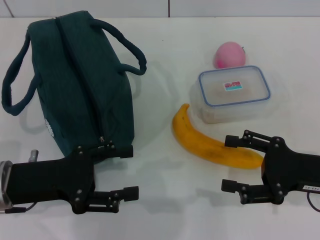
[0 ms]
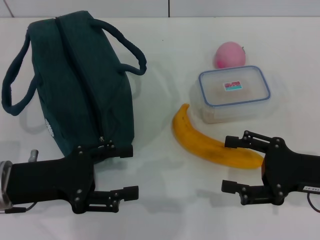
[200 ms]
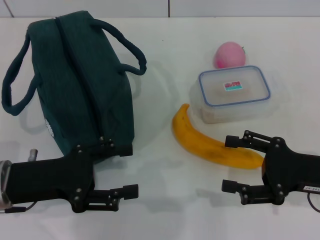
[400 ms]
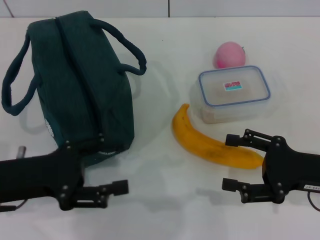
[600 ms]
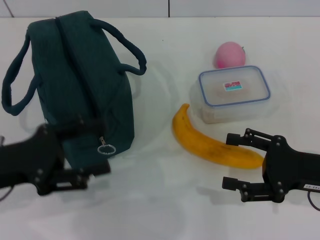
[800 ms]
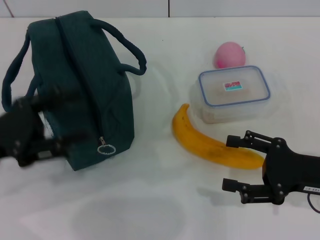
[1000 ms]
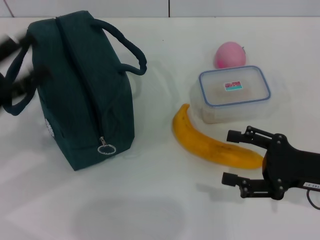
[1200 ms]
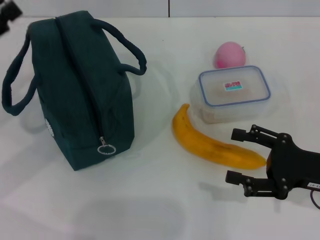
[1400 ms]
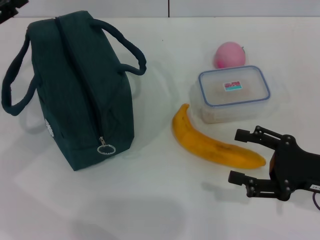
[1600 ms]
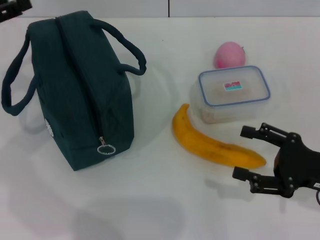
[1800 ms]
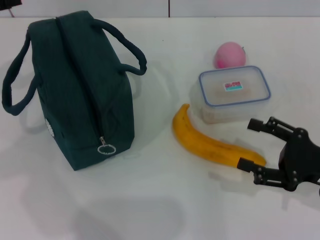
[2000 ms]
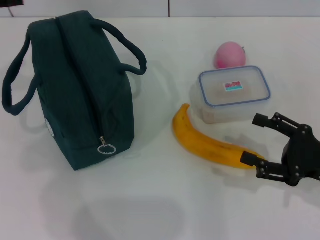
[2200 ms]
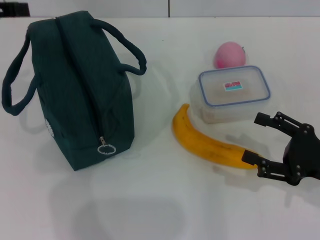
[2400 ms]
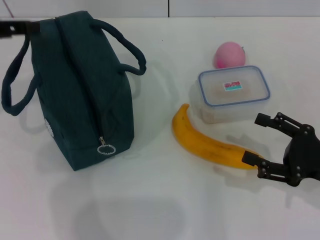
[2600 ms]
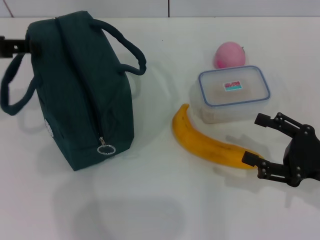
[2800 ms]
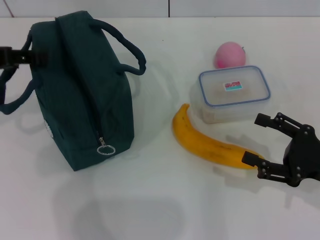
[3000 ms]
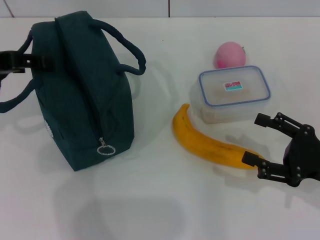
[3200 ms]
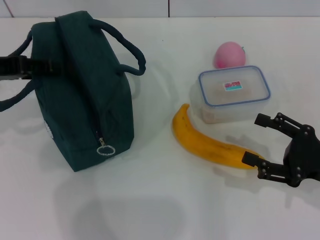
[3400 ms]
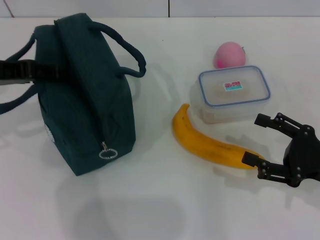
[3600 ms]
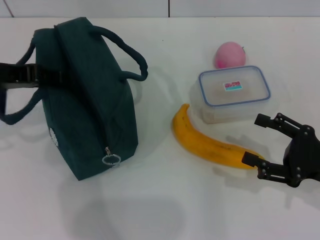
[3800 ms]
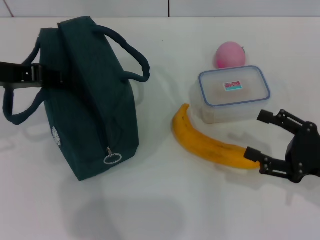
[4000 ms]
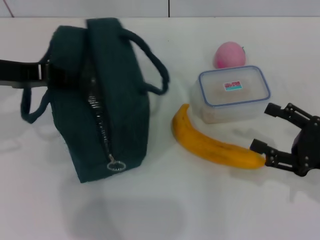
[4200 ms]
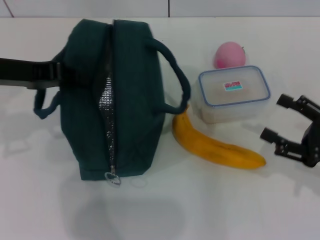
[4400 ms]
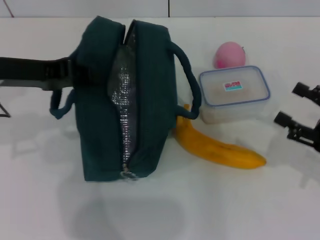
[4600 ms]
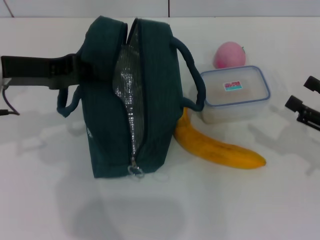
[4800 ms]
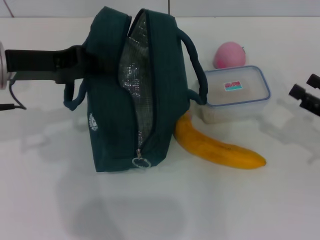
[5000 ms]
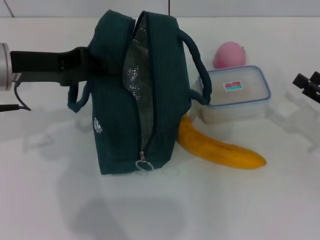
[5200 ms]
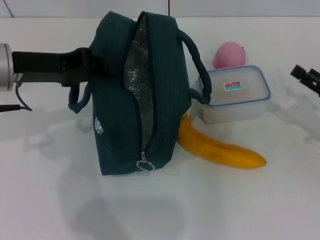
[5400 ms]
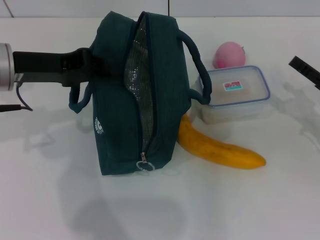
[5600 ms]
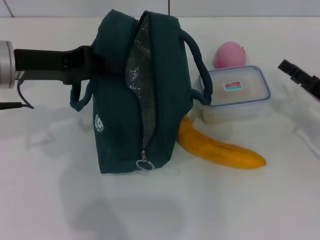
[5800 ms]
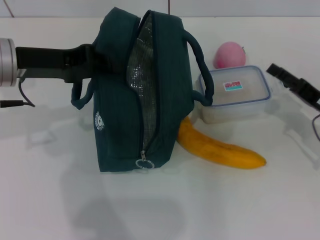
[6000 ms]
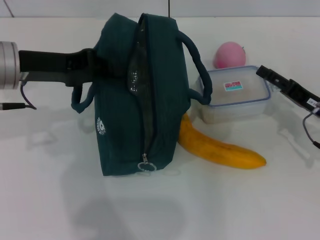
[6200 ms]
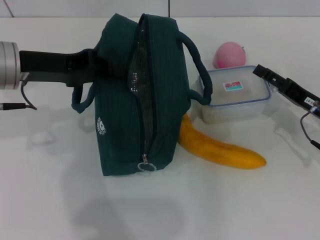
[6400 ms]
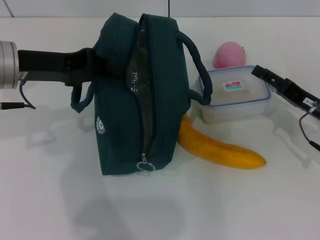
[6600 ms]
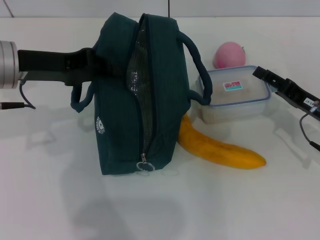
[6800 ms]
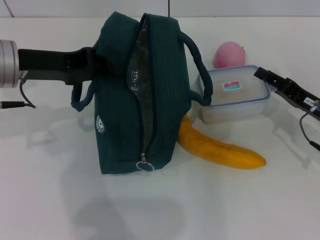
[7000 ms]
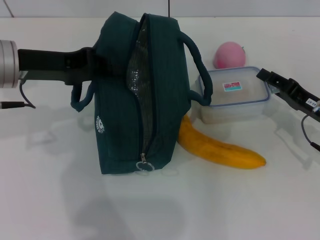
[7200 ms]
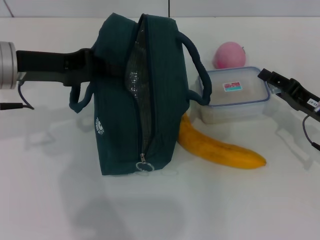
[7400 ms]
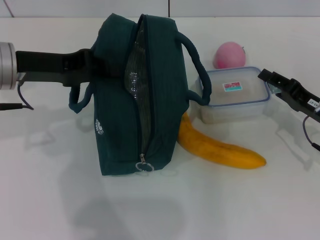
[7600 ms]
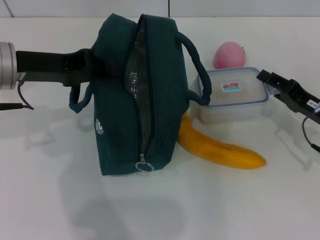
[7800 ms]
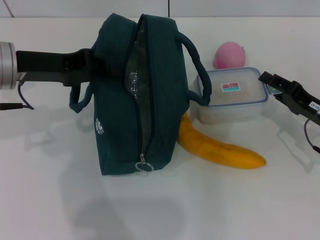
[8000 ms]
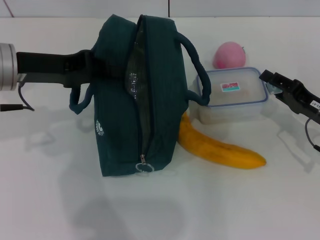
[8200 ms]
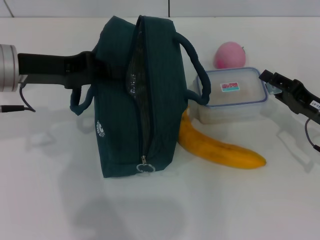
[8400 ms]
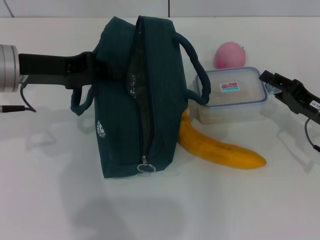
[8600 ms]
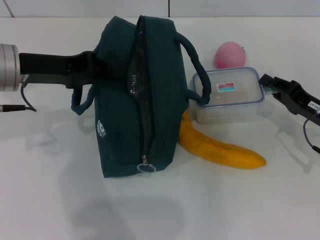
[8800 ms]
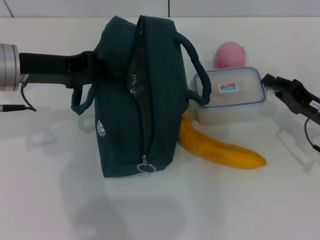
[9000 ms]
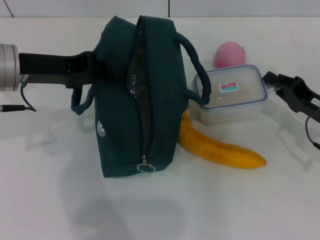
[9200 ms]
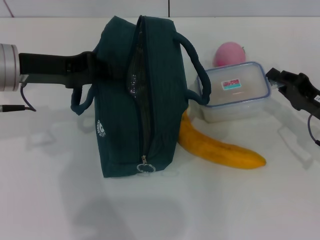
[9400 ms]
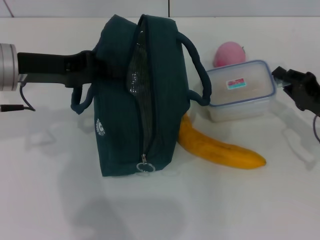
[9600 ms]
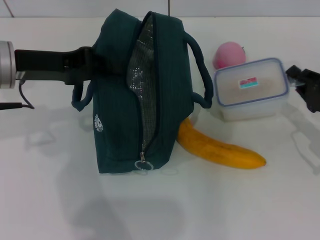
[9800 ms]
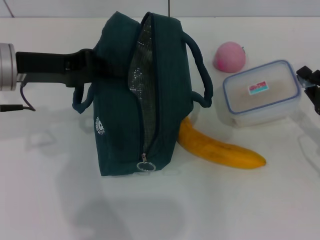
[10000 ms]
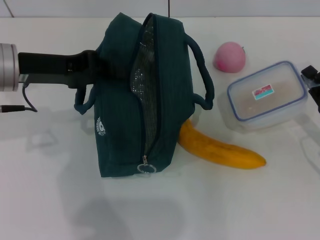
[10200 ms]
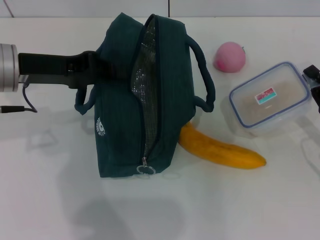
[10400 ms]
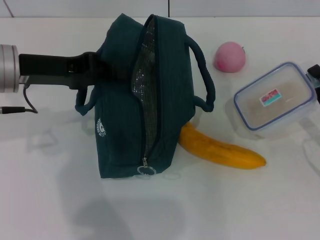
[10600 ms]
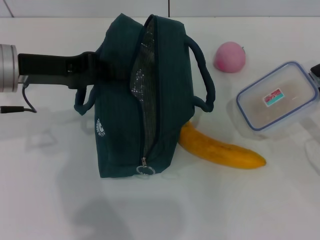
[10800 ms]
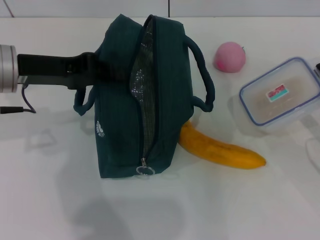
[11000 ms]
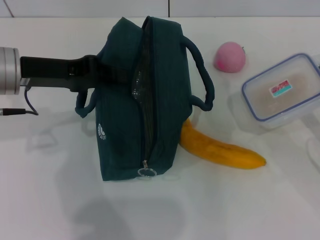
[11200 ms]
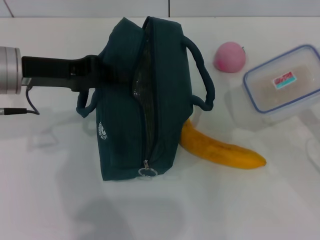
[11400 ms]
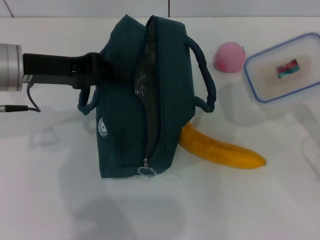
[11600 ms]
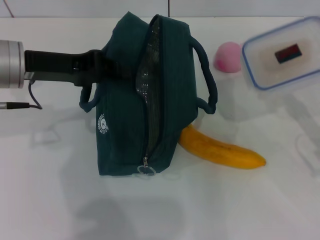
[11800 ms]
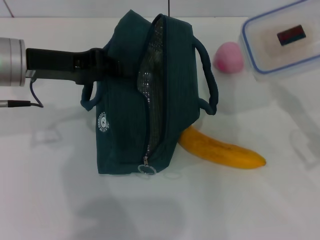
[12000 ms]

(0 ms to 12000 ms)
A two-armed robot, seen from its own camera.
Step, 0 ms - 4000 ms: Hold the lunch bag with your left hand.
Step, 4200 ms - 9000 ms: Pick up the lunch box with your right hand.
0 ms - 1600 ms: The left gripper is displaced to the left, forward and upward by roughly 15 cm.
1600 ms - 3000 ms: The left gripper is displaced upward by about 5 cm.
3000 ms - 4400 ms: The left gripper closes up.
4400 ms - 6000 ms: The right gripper moves forward, about 10 cm.
6000 ms - 7600 ms: The right gripper closes its fingers.
7600 ms - 9000 ms: Both grippers stay about where they are.
9000 ms - 10400 ms: The right gripper shifts by roughly 5 cm.

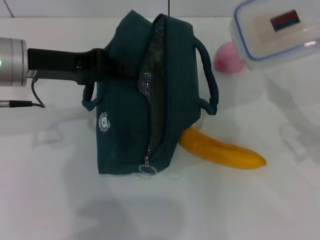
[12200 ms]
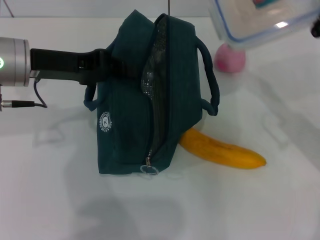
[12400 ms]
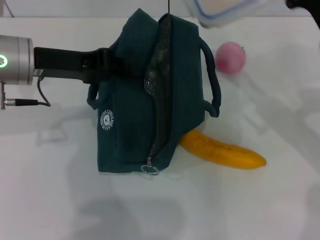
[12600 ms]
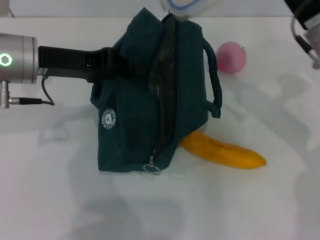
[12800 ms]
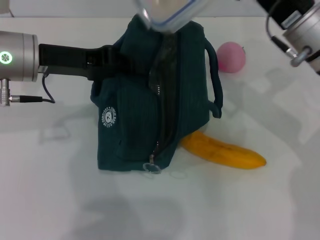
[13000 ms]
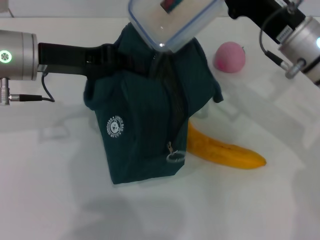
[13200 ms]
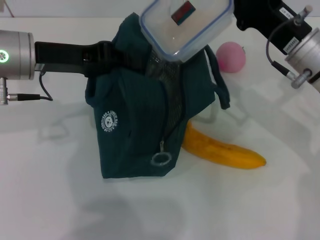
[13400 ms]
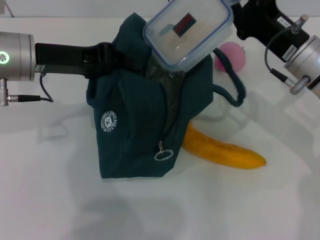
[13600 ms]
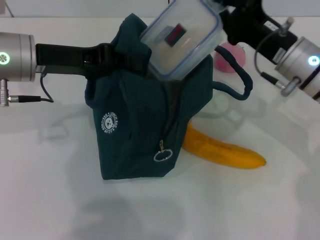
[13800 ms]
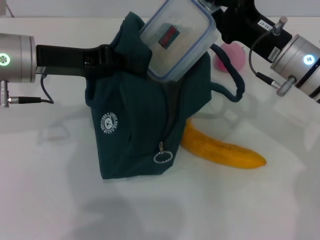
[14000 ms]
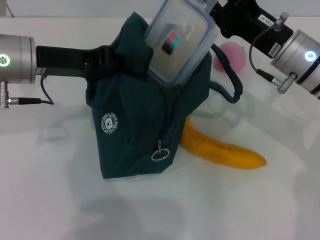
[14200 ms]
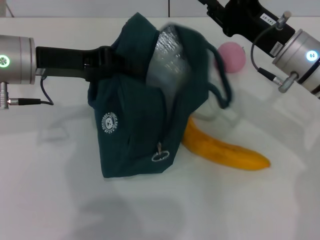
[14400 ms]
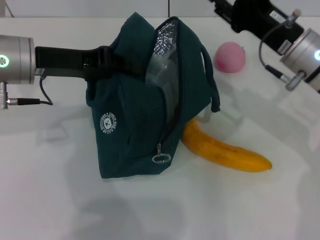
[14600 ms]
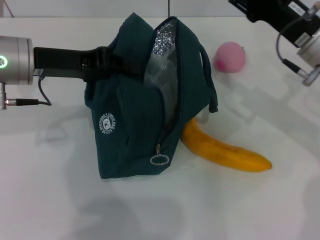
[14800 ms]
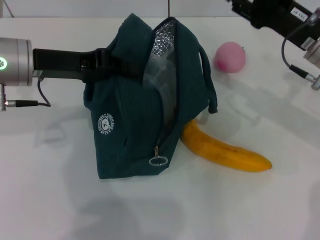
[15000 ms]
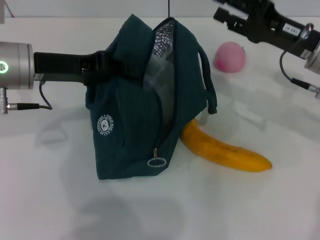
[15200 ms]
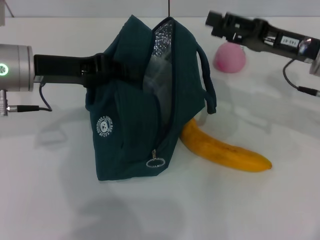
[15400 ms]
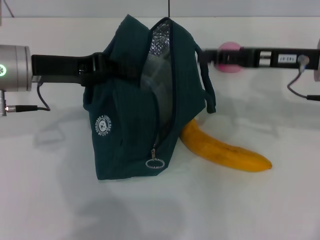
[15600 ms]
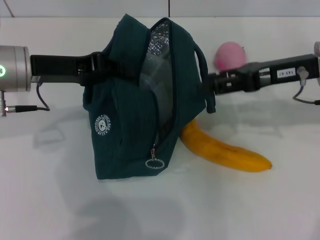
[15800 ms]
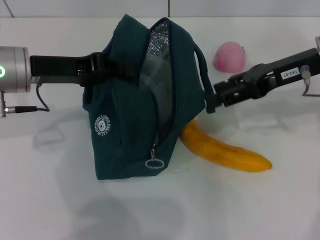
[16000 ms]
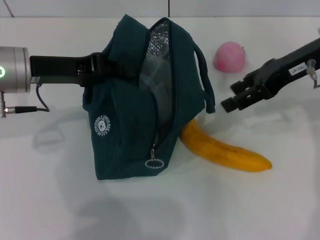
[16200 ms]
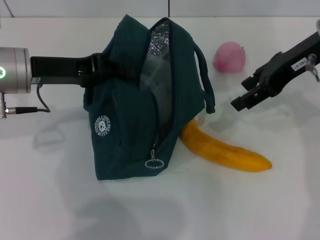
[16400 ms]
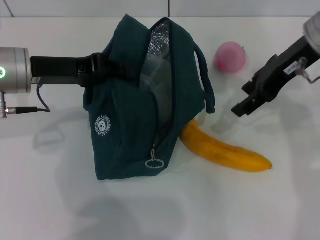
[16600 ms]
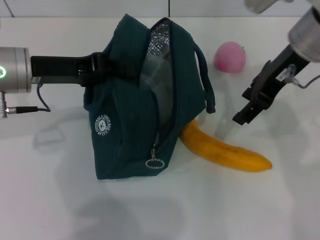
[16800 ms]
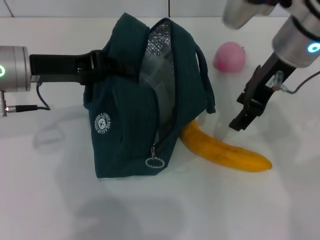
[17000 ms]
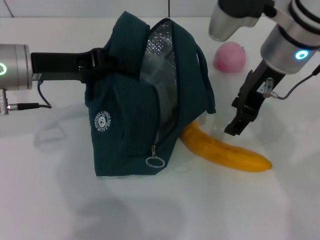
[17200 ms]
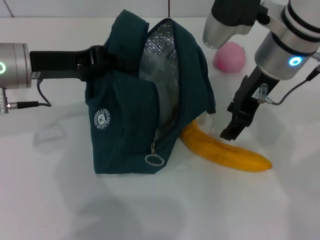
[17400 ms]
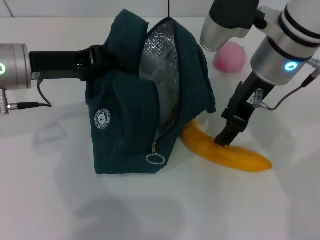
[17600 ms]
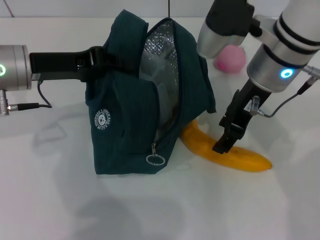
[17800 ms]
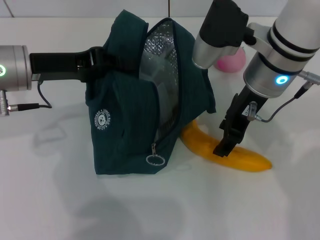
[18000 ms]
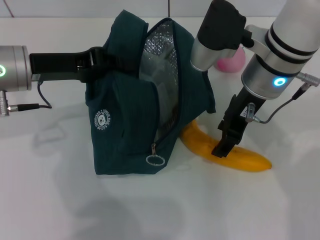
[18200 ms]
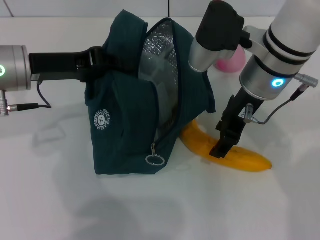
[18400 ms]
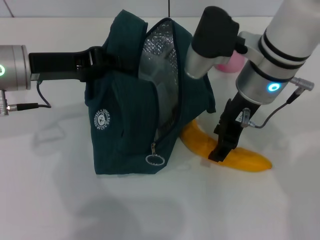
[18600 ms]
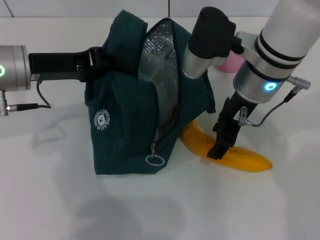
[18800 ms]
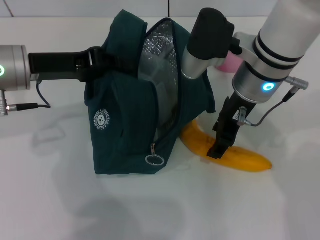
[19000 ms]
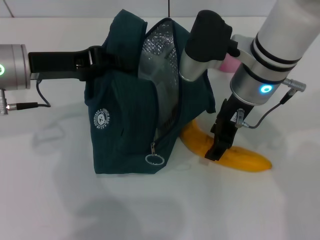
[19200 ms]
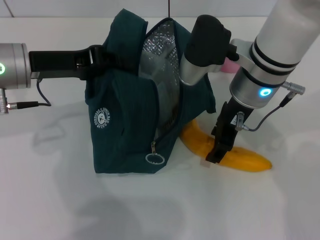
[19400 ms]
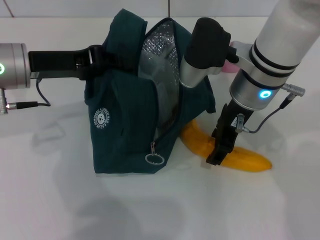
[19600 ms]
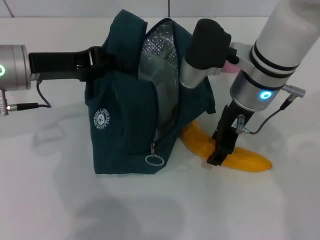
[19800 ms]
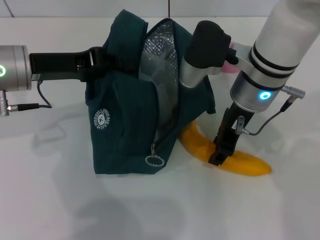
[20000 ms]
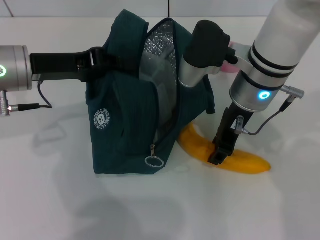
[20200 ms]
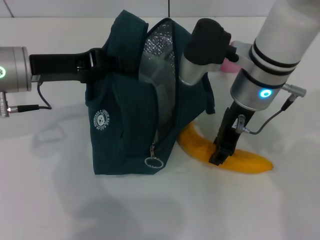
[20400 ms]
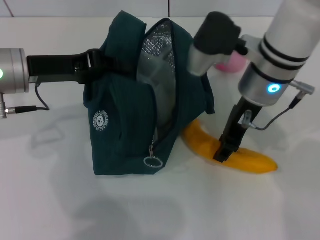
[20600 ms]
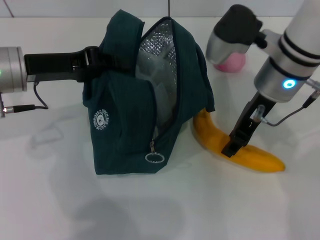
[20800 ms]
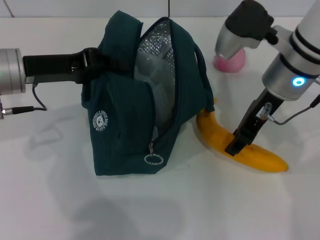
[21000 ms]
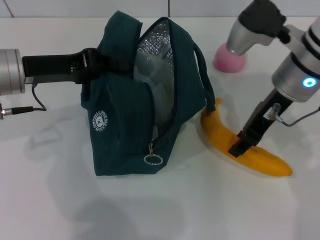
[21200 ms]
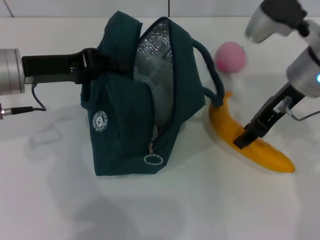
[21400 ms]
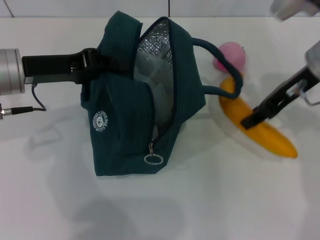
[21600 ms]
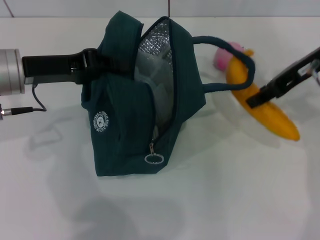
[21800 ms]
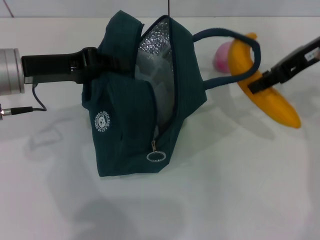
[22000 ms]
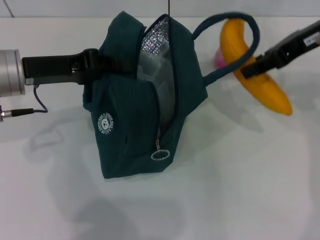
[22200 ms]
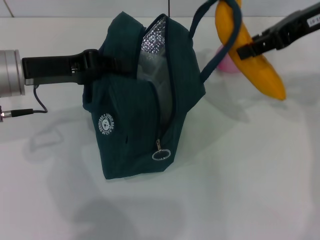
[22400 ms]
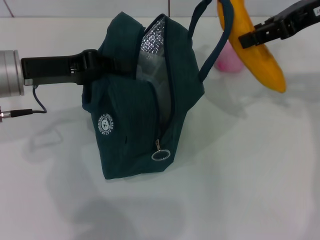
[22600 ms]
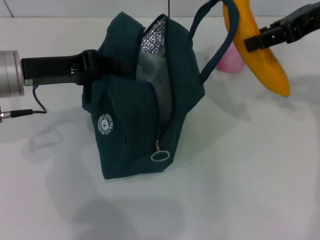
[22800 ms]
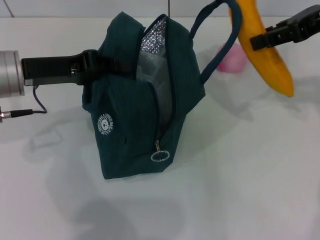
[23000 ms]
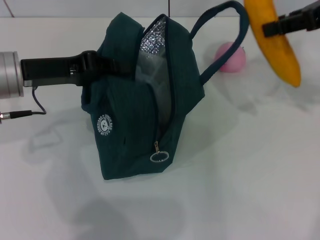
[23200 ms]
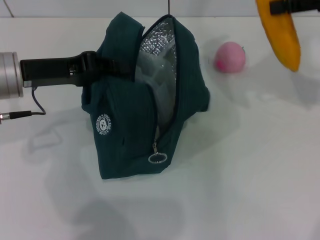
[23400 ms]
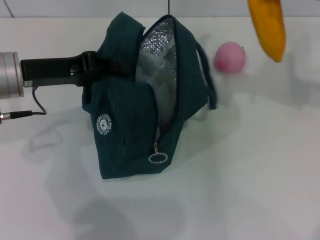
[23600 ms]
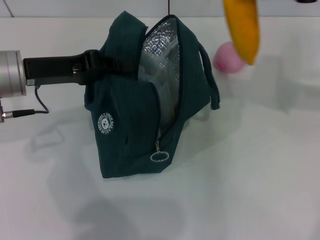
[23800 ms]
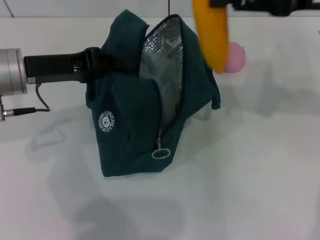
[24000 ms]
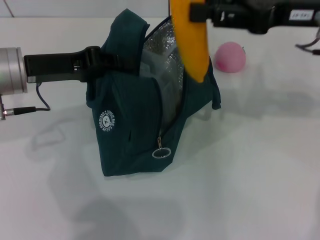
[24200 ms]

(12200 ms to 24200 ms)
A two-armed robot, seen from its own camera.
Step, 12200 ms - 14600 ms: Place the lunch box into the lunch bag with your right hand.
Step, 14800 ms - 20000 ms: Take the banana with your right hand.
12200 ms - 13800 ms: The right gripper travels to the left and forward by roughly 15 cm.
13800 ms - 15200 ms: The right gripper opens.
15200 ms - 16600 ms: The right gripper goes about 10 cm upward.
16600 ms - 18200 ms: The right gripper moves to the left, some 10 cm.
18200 ms - 19800 ms: The grippers move only a little.
19800 ms - 21200 ms: The right gripper shifts some 5 cm to the right.
21200 ms - 22600 ms: The right gripper moves upward and to the right, approximately 15 cm.
22600 ms - 24200 ms: The right gripper goes roughly 5 cm downward.
